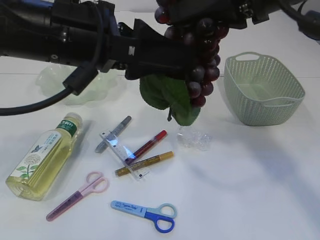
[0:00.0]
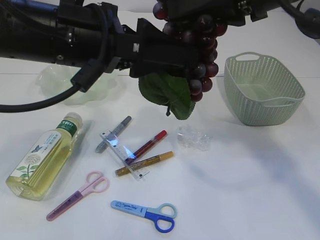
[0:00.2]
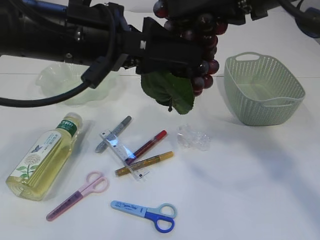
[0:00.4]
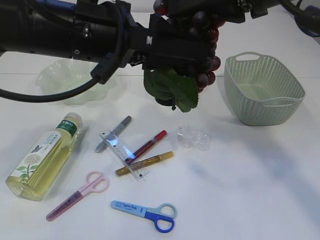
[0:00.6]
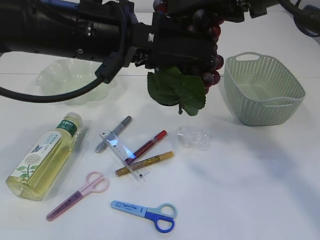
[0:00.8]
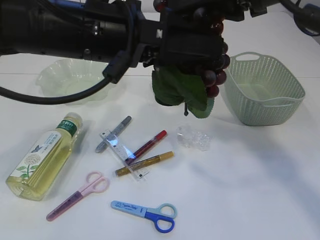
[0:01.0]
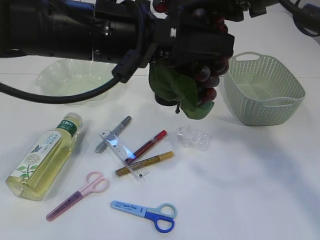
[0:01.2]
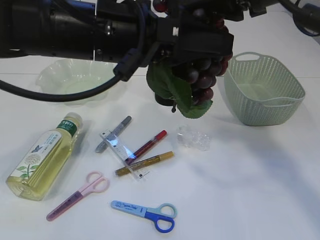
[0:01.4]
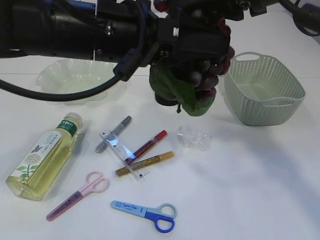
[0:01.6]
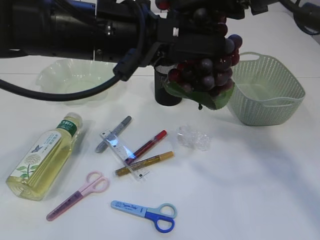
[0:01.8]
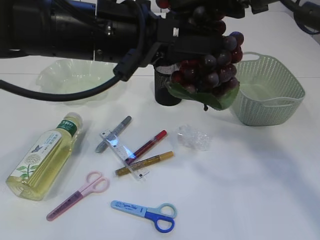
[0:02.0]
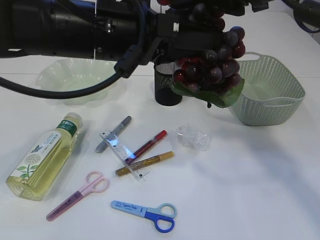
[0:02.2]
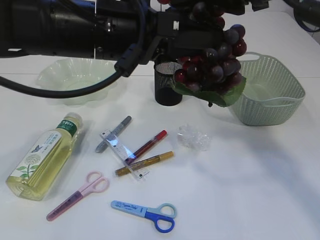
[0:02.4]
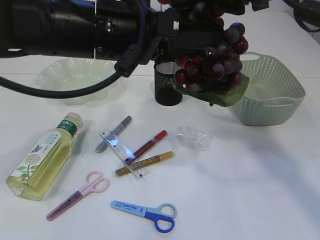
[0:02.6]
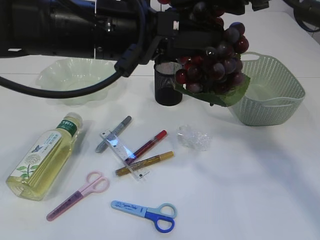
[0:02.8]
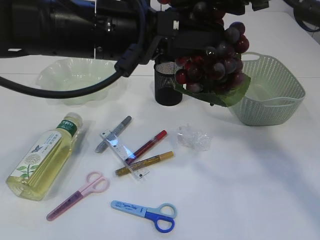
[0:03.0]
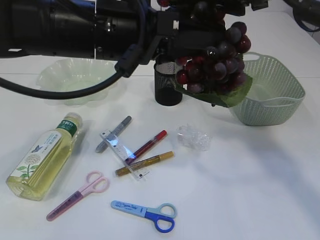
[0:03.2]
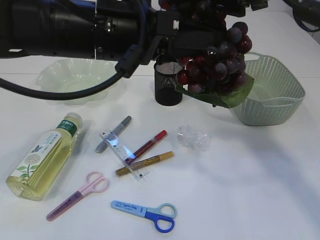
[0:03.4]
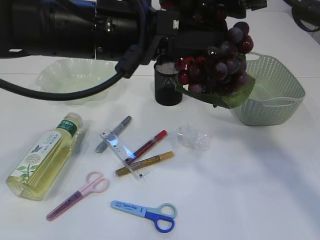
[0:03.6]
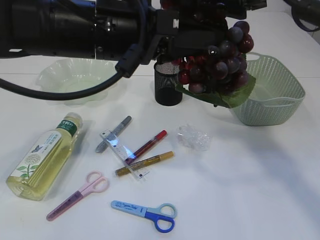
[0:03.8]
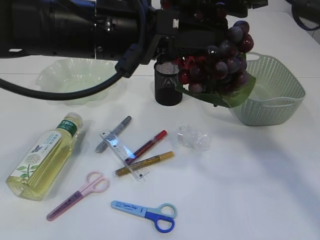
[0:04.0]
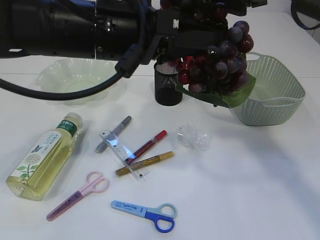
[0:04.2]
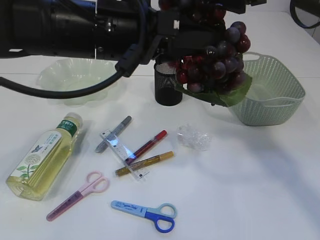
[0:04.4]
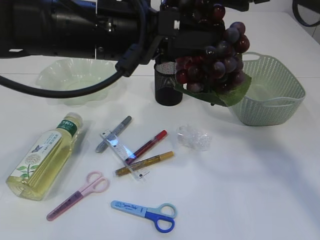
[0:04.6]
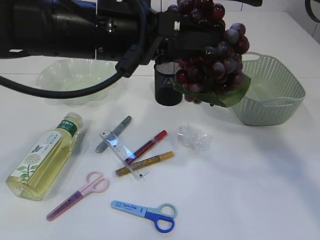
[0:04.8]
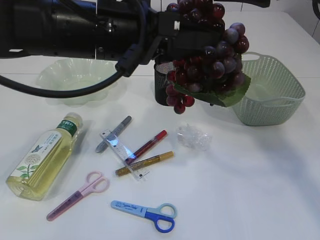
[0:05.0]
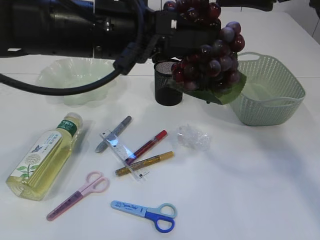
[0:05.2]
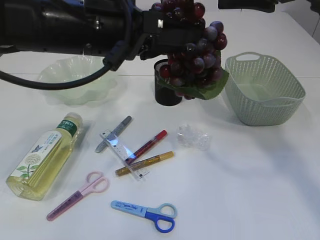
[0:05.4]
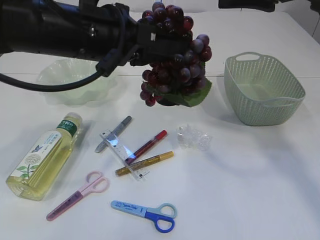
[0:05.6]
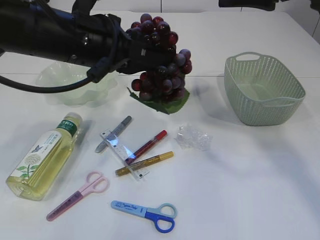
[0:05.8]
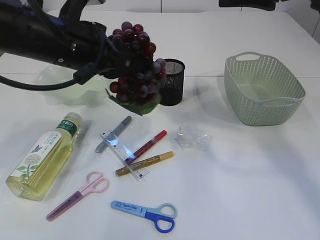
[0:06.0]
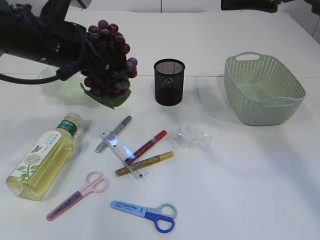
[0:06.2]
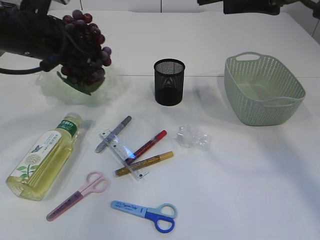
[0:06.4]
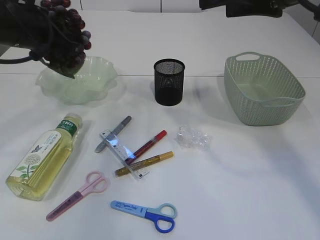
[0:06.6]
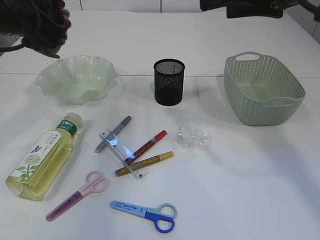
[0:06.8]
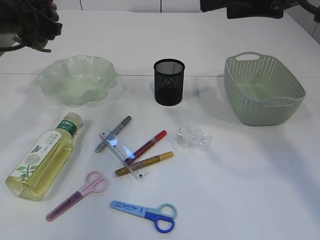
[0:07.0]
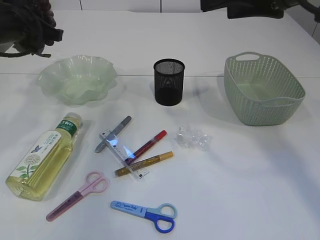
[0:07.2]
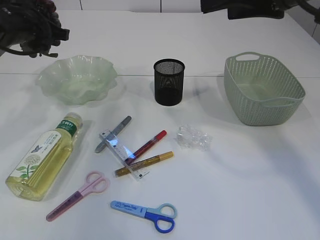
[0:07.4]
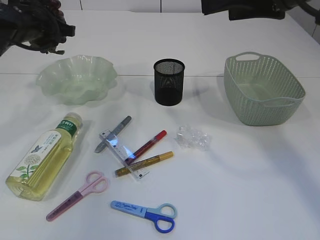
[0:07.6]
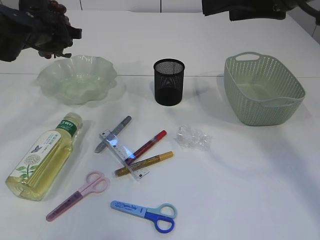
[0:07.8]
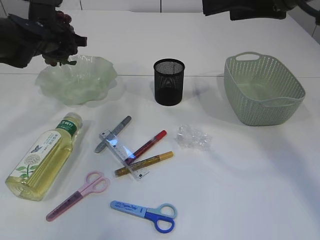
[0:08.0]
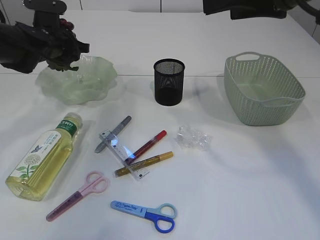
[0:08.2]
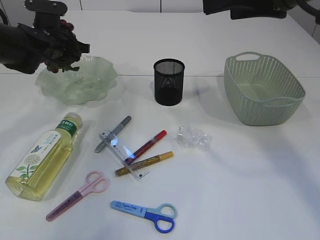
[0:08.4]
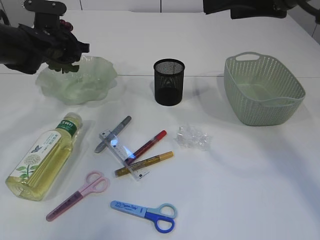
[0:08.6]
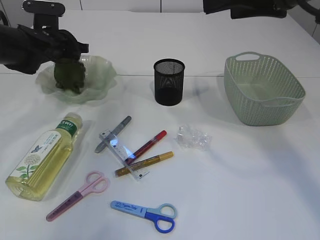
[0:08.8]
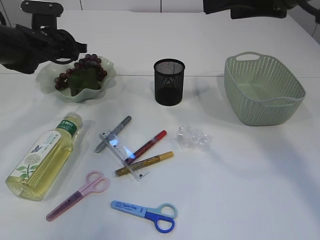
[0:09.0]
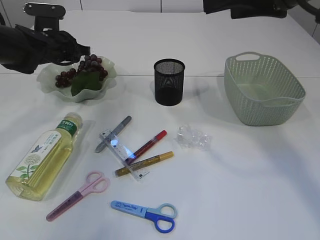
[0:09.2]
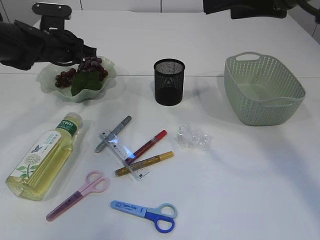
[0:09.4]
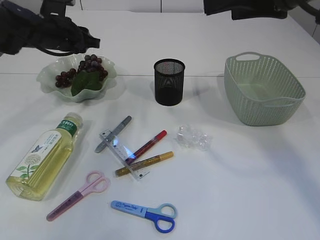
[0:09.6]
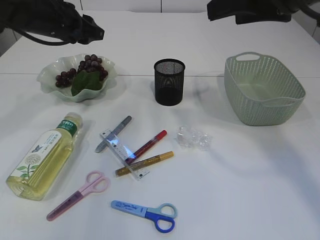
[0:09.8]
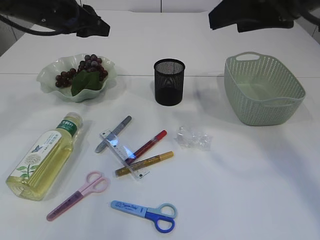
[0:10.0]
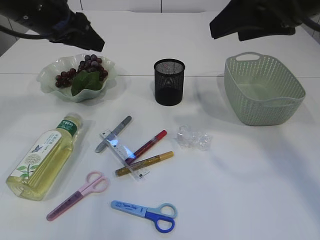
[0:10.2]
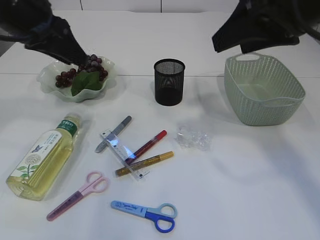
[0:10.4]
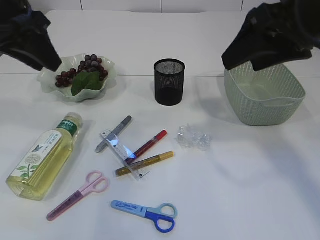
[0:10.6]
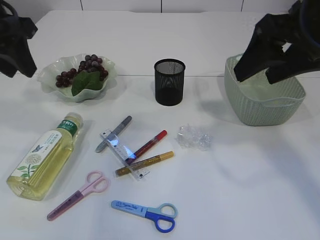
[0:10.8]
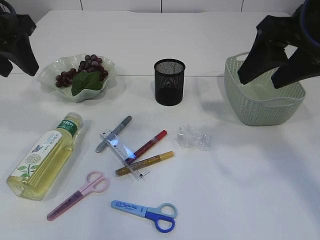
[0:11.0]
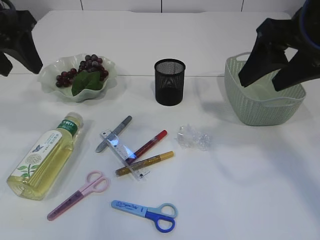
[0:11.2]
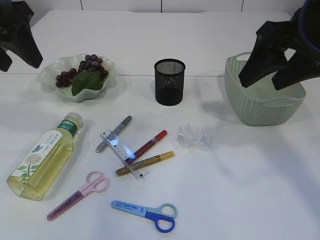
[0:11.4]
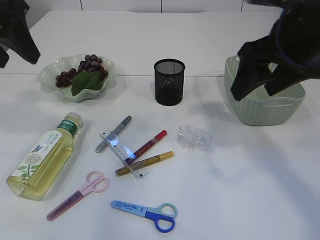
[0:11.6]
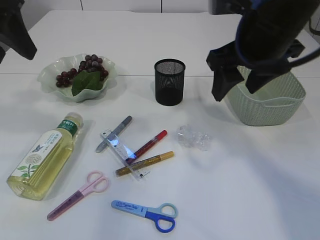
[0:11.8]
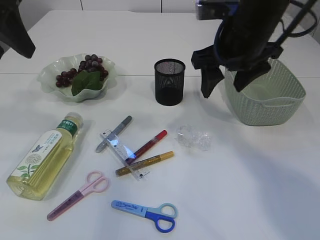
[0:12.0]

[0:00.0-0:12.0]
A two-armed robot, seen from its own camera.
Step, 0:00.0 to 0:05.8: Hand over the grapes.
Step, 0:06.0 to 0:09.4: Place the grapes in the plate.
0:00.0 to 0:01.6: There are only small adjustments of the grippers.
0:01.6 to 0:03.0: The left gripper closes its fingers.
0:03.0 to 0:04.4: The right gripper opens.
0:04.4 to 0:06.0: The left gripper is displaced to the left by about 5 cm.
0:06.0 to 0:07.6: The left gripper is displaced forward and to the left by about 15 cm.
0:07.6 to 0:09.0: The left gripper goes approximately 5 cm downward, and opens up.
0:09.0 to 0:10.4: The left gripper goes about 20 cm backward and upward.
0:10.4 to 0:12.0: The right gripper shifts roughly 10 cm downward, forward and to the left. Meanwhile the left gripper moves backward and upward, about 5 cm, and opens its fingers.

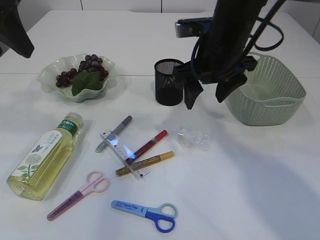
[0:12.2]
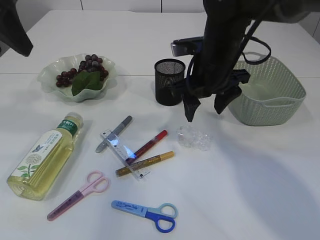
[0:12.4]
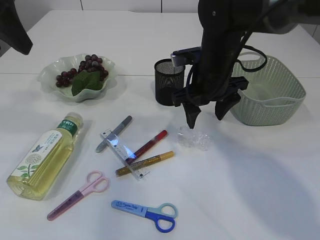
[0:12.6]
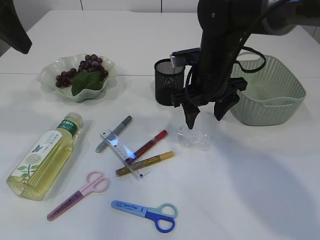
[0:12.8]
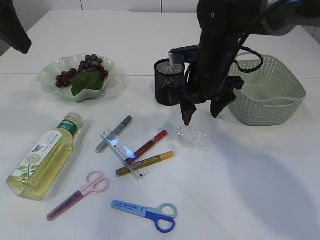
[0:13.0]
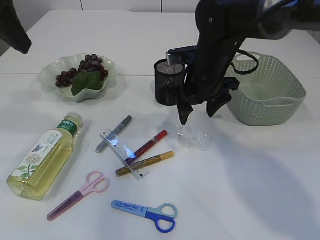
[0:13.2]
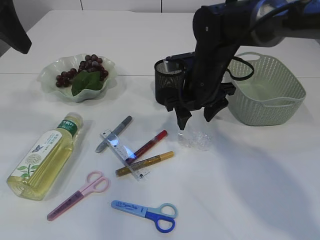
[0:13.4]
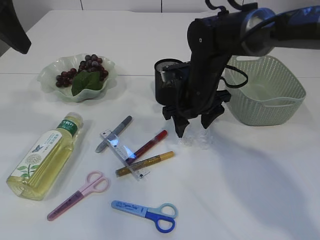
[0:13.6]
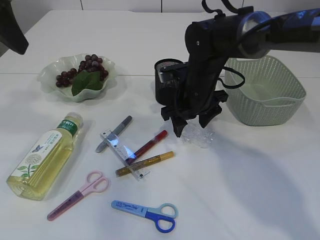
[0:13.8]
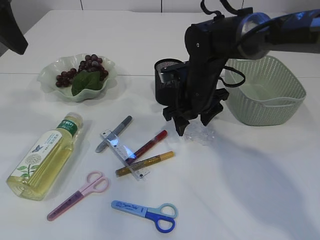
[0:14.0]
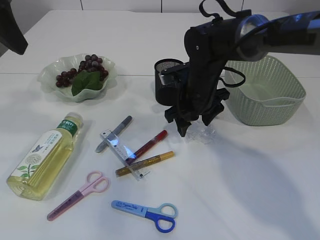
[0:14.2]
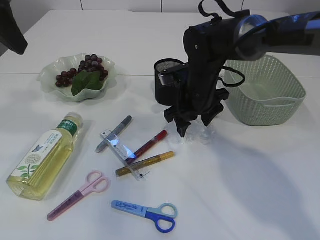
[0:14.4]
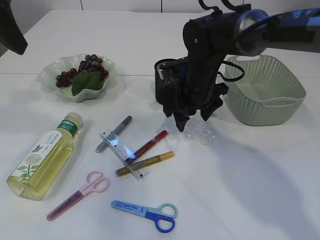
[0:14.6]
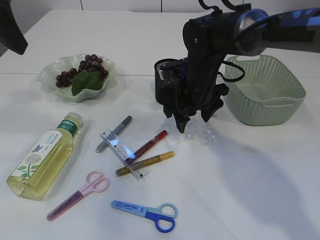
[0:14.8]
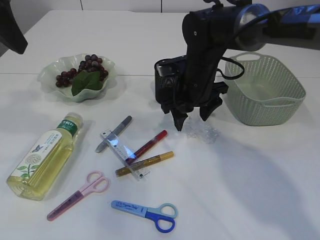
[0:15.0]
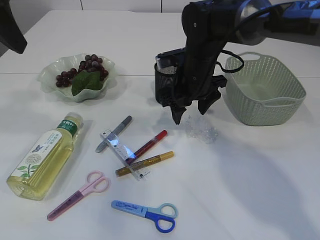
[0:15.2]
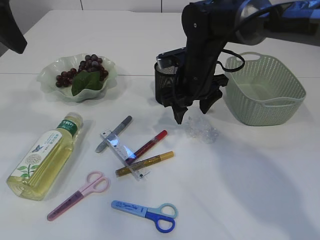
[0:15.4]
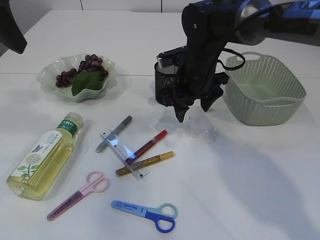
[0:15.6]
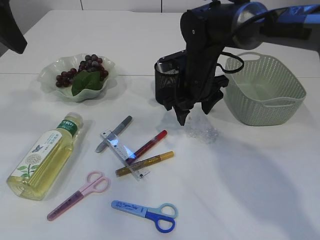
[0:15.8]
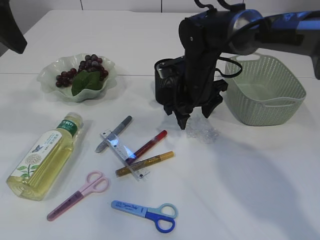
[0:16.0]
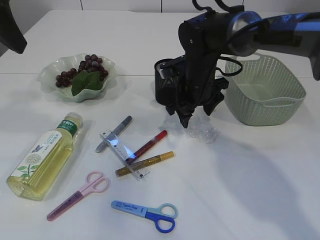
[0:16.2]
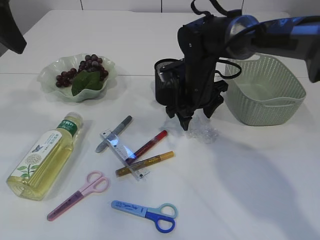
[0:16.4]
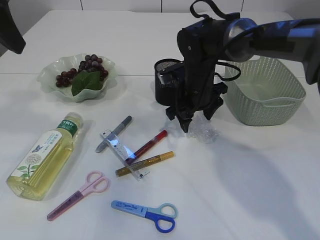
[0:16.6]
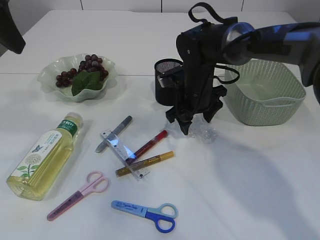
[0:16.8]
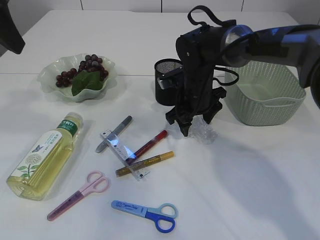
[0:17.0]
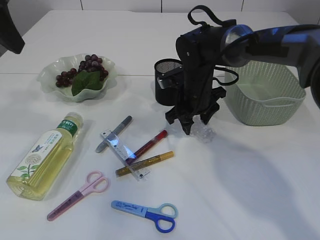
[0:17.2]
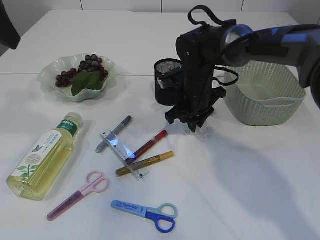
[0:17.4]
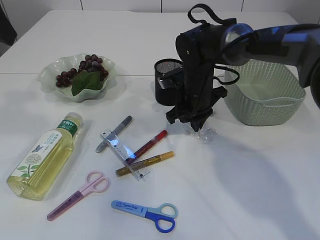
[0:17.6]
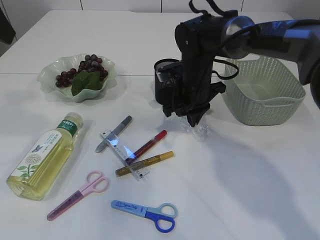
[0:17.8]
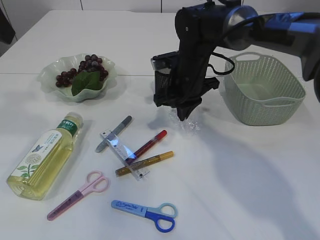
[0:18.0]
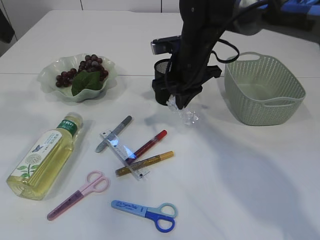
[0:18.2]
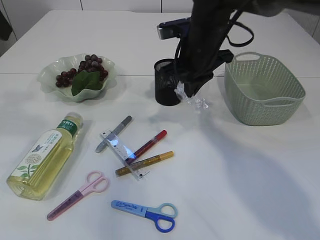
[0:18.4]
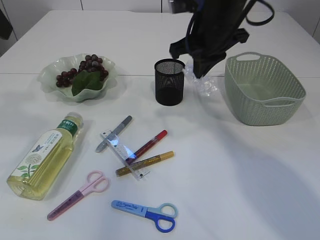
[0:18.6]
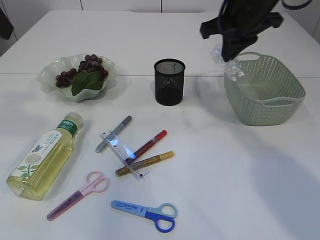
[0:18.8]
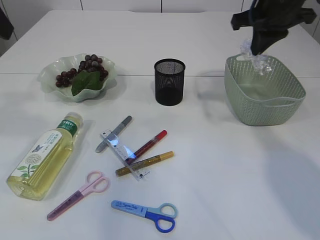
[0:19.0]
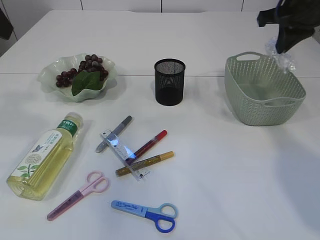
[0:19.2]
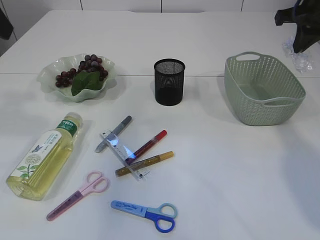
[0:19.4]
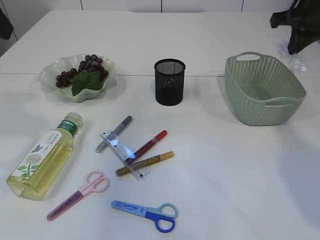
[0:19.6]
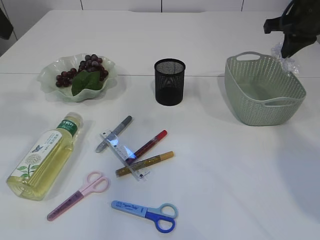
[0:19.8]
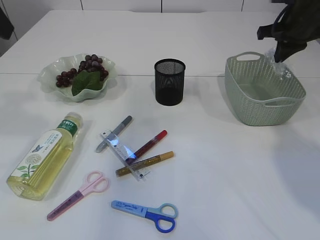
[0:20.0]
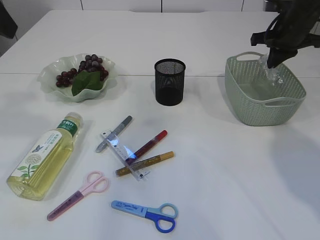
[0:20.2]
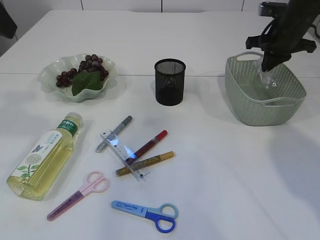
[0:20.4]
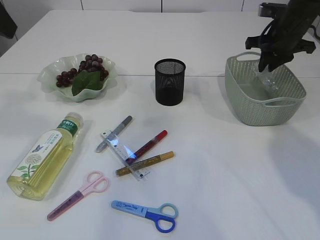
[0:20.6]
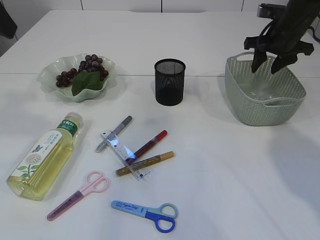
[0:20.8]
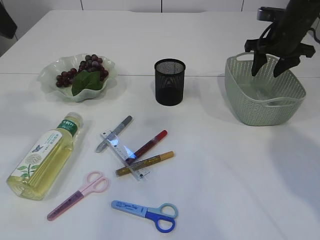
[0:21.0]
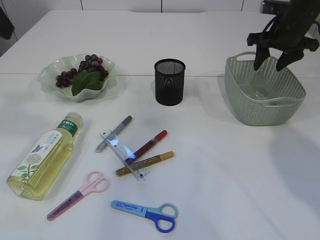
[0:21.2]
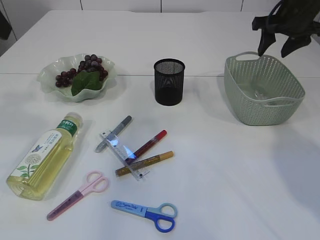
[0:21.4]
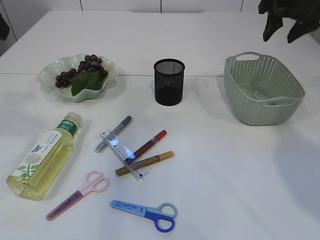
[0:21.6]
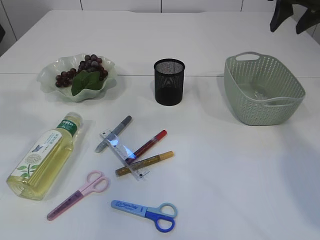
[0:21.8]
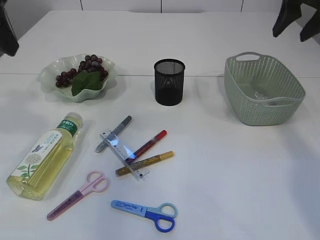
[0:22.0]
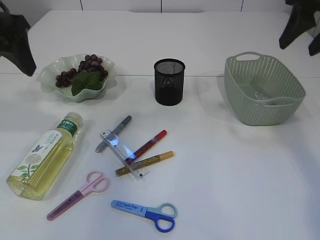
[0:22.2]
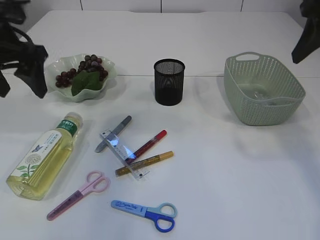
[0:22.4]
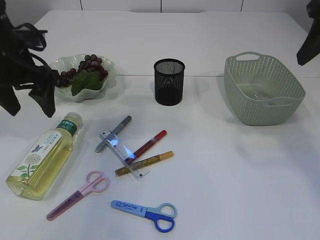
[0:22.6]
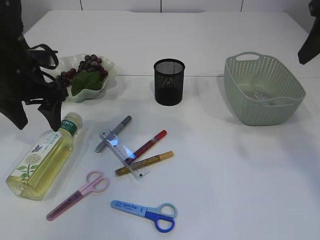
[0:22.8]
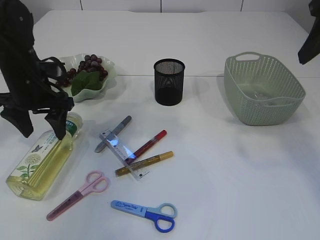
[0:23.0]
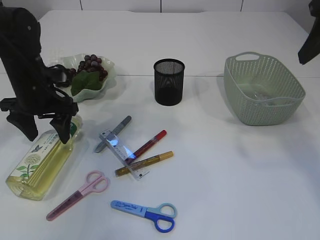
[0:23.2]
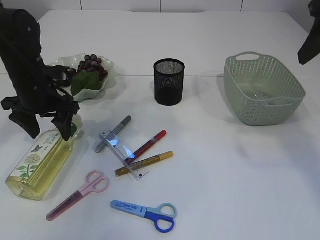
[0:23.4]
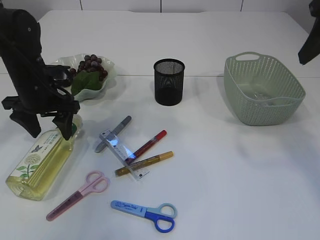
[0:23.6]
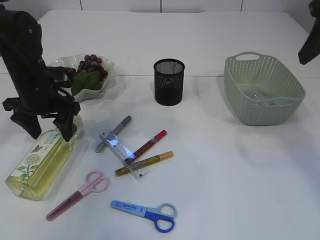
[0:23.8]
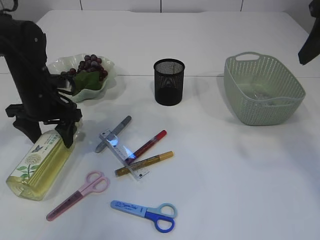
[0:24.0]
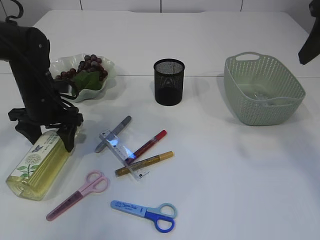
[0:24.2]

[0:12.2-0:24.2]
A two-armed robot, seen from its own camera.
Step, 0:12.2 to 0:18.4: Pick up the plastic.
Step, 0:18.6 to 0:21.4: Place the plastic in the basket.
0:12.2 to 0:13.8: The right gripper is displaced downward by roughly 10 cm.
0:13.8 to 0:16.6: There are only small adjustments of the grippers.
0:16.6 to 0:18.2: The right gripper goes some 5 cm upward, and closes its fingers.
0:18.2 to 0:19.8: The right gripper moves to the right, approximately 20 cm.
0:19.8 to 0:21.2: The right gripper ends up about 5 cm from where it was, and opens up.
0:21.2 to 0:22.6: The right gripper is displaced backward and upward by approximately 25 cm, while the left gripper shifts some 15 cm downward and forward, and opens.
0:22.6 to 0:24.2: The left gripper goes roughly 10 cm downward.
